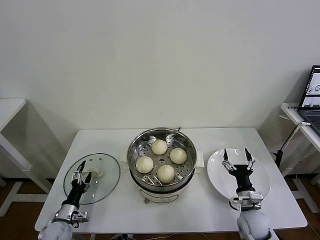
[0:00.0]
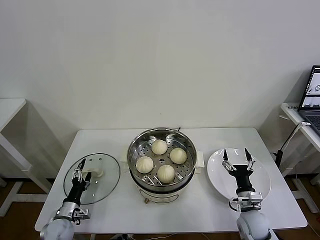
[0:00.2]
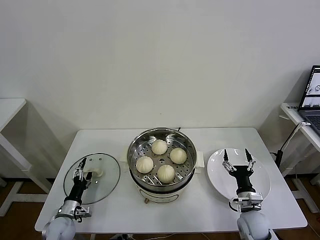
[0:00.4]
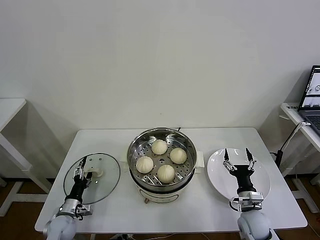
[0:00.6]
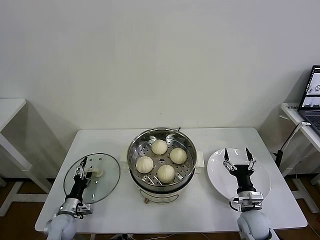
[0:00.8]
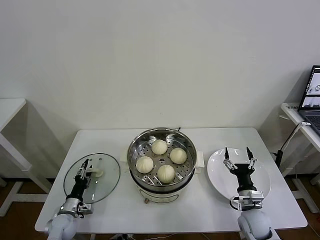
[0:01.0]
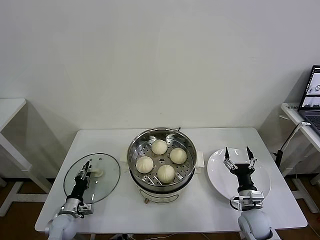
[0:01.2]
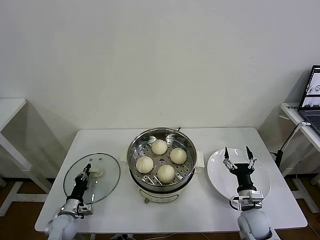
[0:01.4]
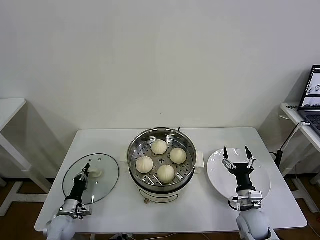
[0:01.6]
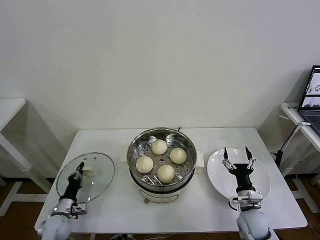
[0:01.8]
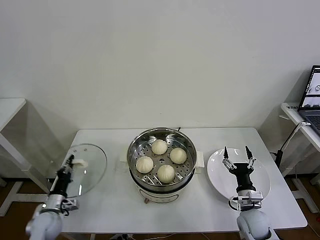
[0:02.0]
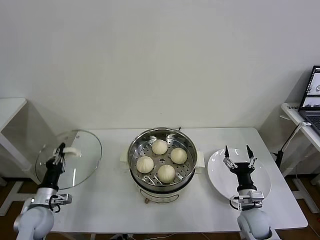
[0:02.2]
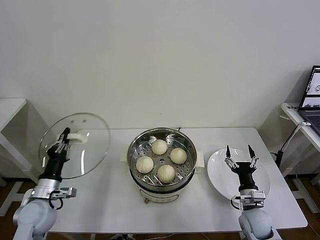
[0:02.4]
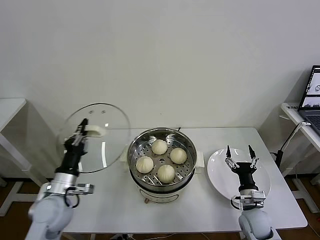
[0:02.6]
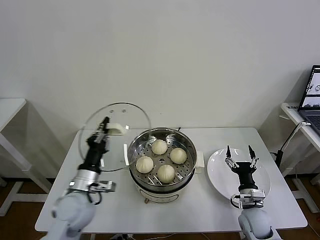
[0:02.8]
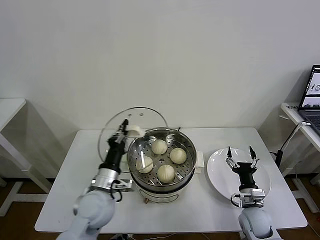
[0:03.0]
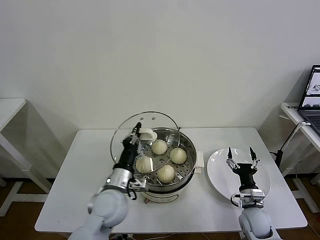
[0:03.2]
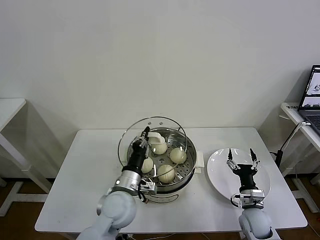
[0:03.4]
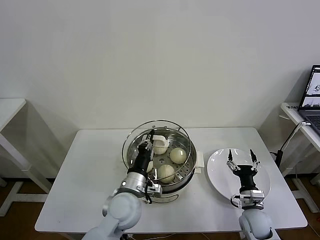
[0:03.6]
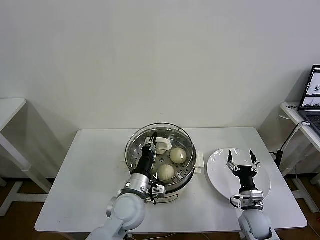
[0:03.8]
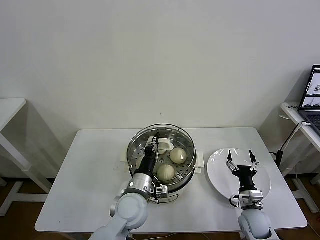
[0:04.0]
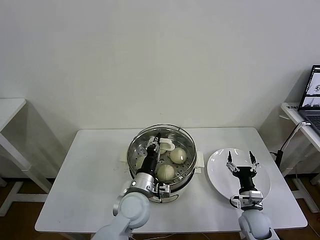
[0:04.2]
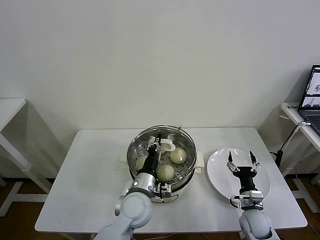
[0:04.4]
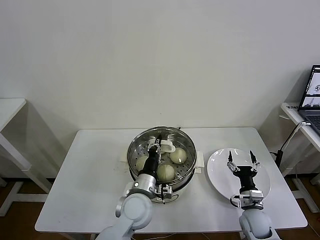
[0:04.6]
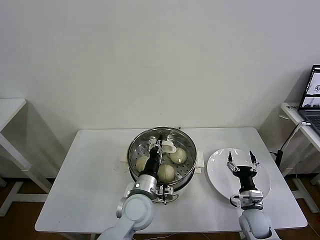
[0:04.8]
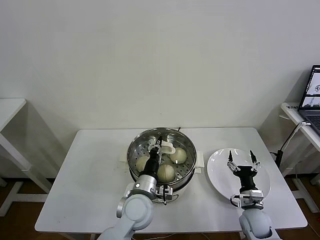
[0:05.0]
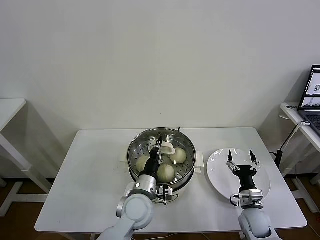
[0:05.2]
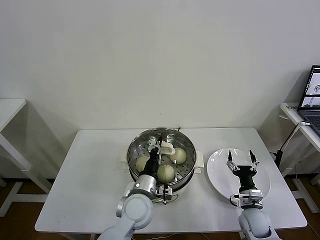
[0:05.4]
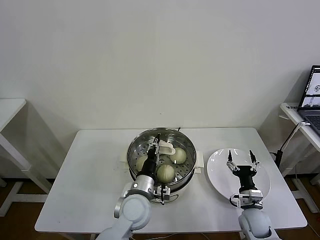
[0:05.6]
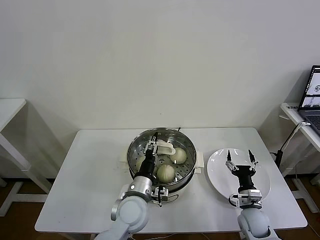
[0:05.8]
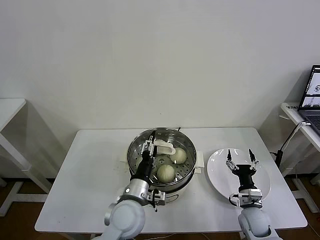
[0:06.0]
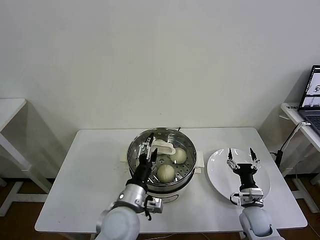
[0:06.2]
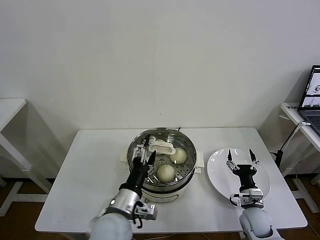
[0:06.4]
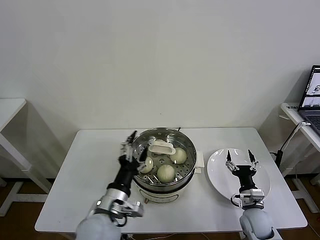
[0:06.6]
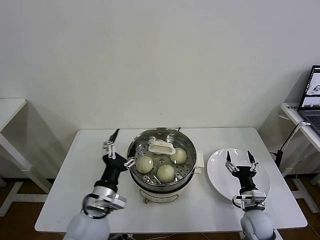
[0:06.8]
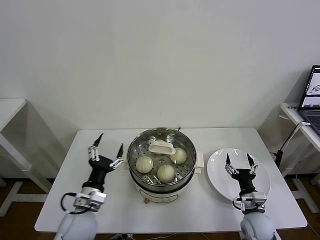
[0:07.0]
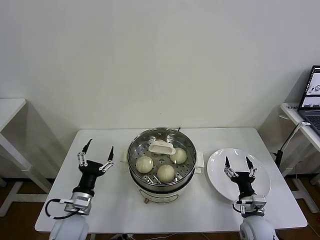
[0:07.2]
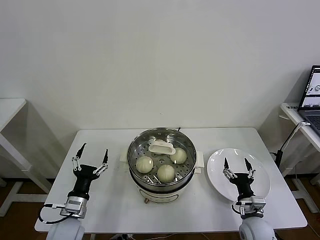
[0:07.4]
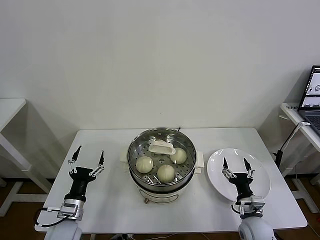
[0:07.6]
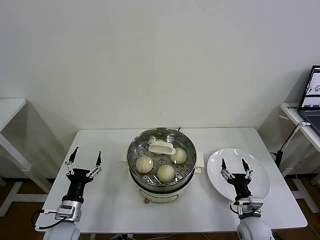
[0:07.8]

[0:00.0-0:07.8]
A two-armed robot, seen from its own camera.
Task of the whole recording: take steamed baozi put them in steamer then cover it.
Step, 0:01.6 to 0:05.6: Place the pot lid on the steamer with left gripper.
0:00.0 to 0:01.6: The left gripper closes its fingers.
0:01.6 to 0:03.2: The left gripper travels upward and to the right by some 30 cm.
0:03.2 to 0:04.6: The left gripper travels to the right by some 10 cm.
0:04.6 to 0:06.2: The left gripper ends up approximately 5 cm from where it was, and opens.
0:06.2 to 0:07.8: The left gripper is displaced to the left and downward by some 20 cm.

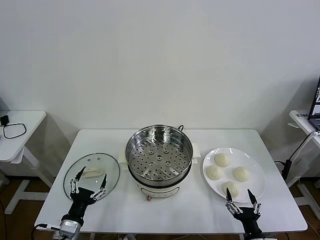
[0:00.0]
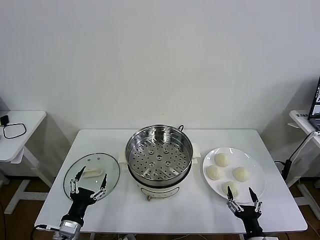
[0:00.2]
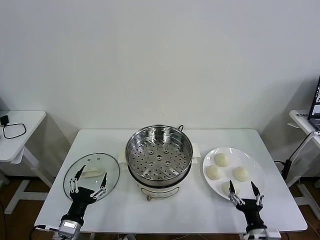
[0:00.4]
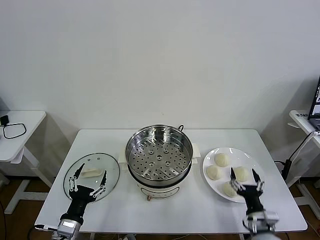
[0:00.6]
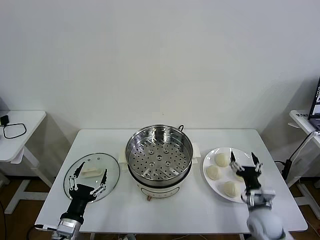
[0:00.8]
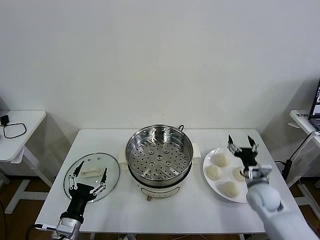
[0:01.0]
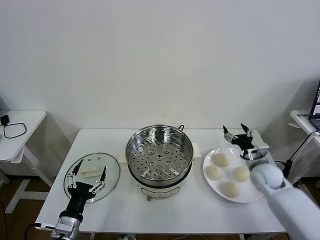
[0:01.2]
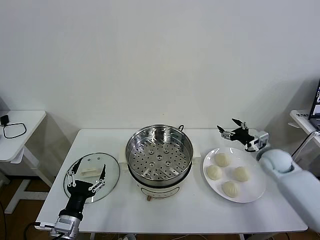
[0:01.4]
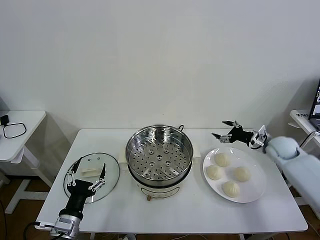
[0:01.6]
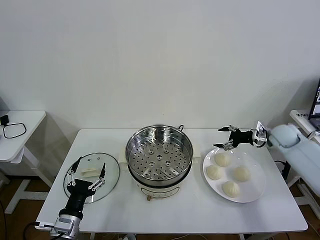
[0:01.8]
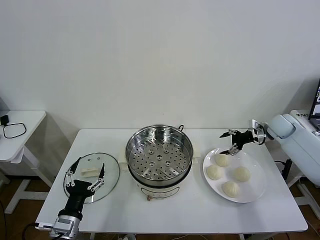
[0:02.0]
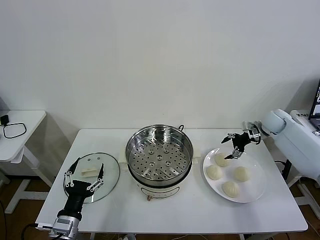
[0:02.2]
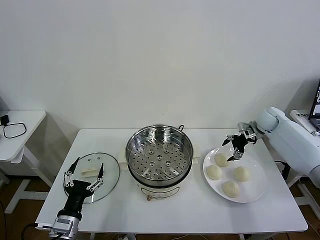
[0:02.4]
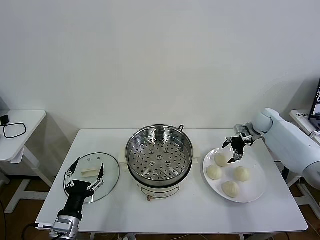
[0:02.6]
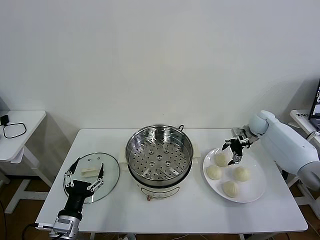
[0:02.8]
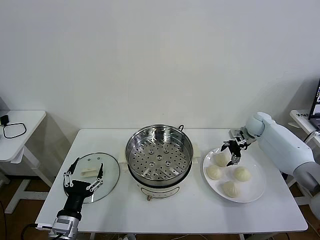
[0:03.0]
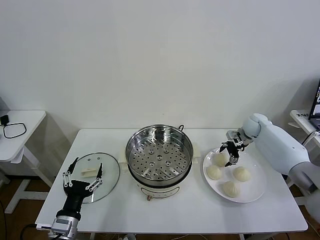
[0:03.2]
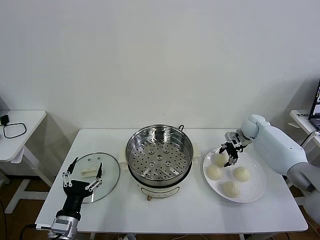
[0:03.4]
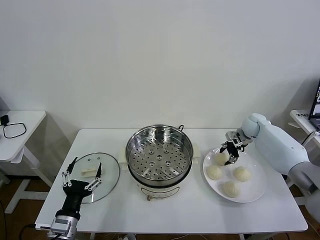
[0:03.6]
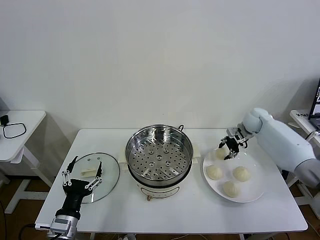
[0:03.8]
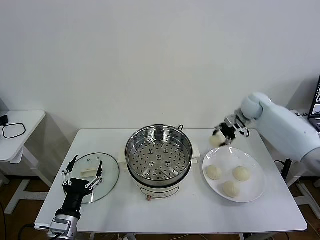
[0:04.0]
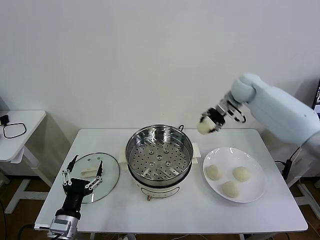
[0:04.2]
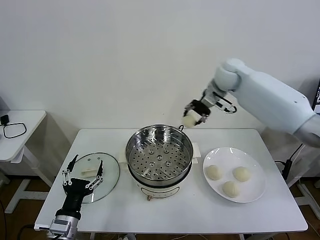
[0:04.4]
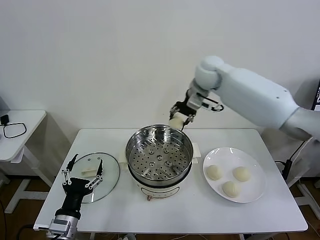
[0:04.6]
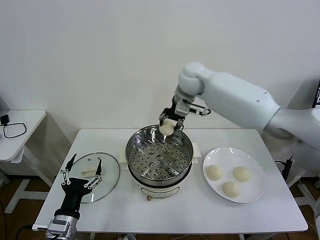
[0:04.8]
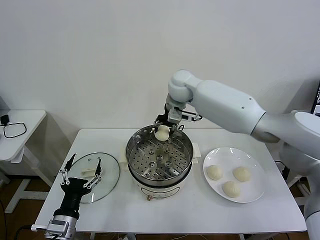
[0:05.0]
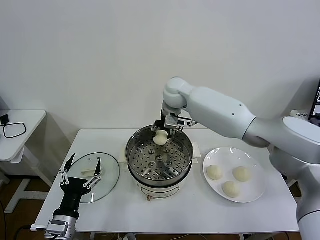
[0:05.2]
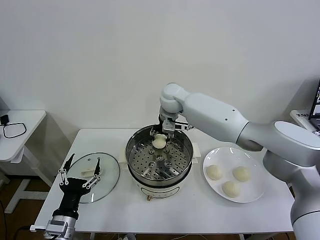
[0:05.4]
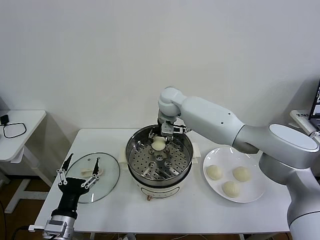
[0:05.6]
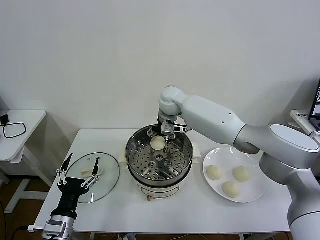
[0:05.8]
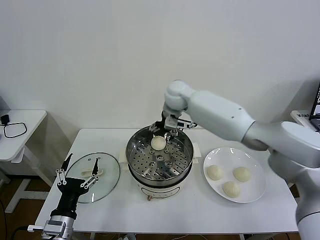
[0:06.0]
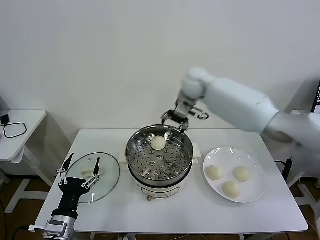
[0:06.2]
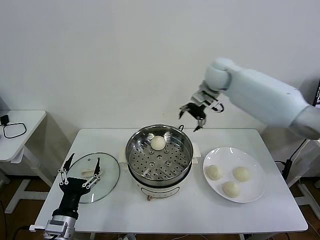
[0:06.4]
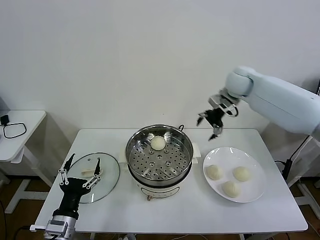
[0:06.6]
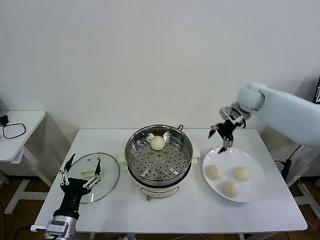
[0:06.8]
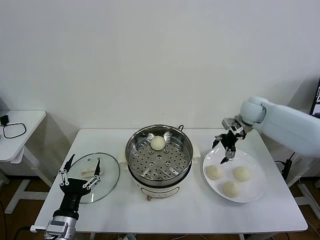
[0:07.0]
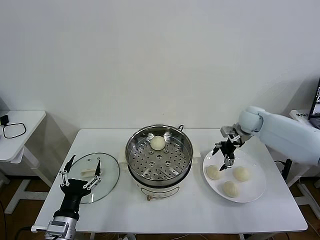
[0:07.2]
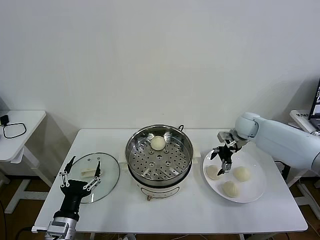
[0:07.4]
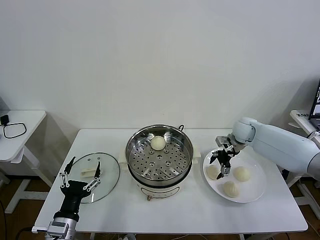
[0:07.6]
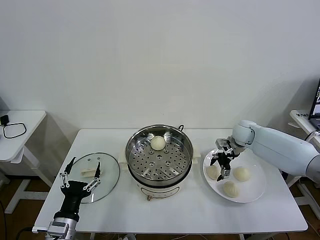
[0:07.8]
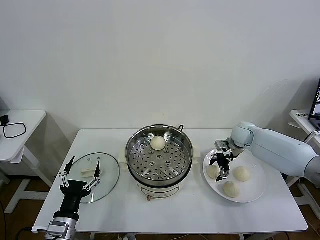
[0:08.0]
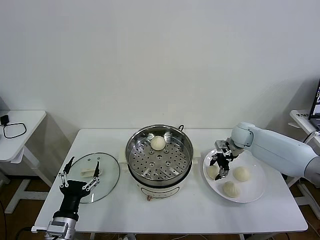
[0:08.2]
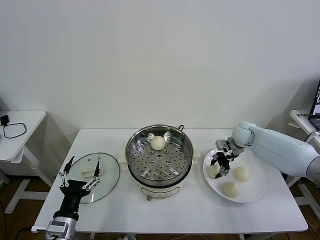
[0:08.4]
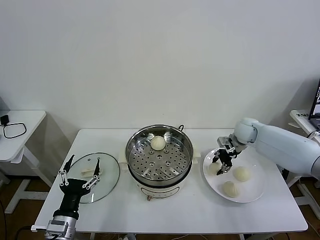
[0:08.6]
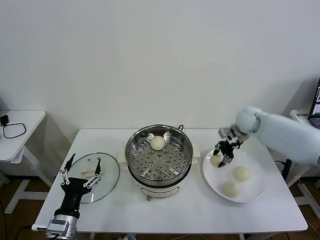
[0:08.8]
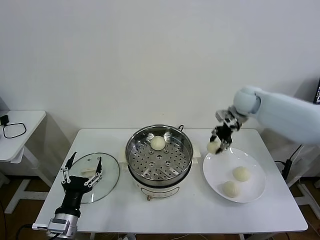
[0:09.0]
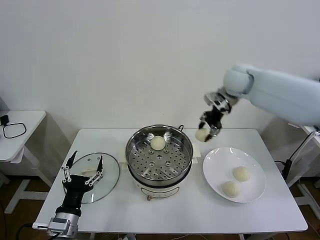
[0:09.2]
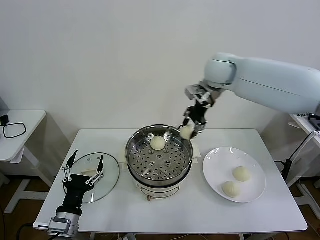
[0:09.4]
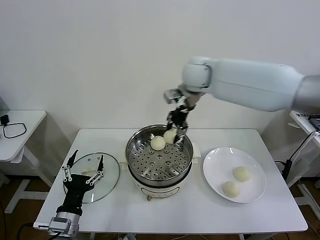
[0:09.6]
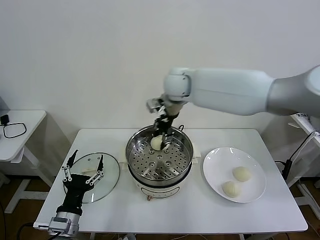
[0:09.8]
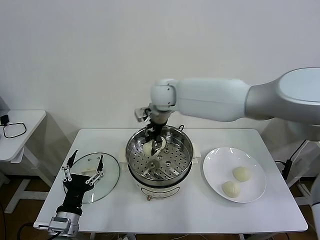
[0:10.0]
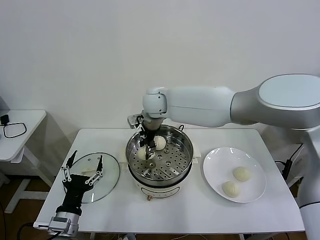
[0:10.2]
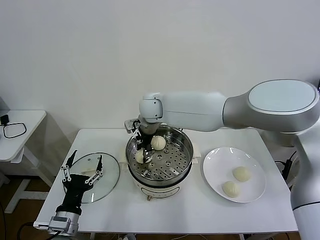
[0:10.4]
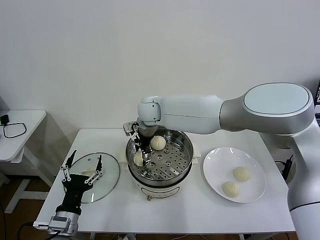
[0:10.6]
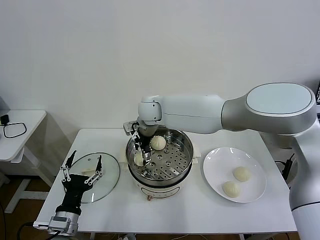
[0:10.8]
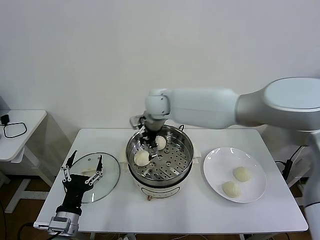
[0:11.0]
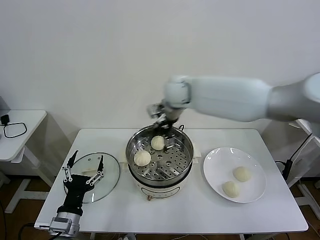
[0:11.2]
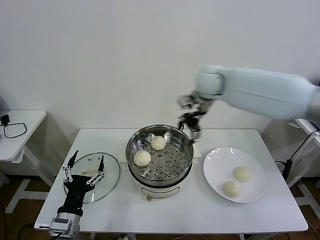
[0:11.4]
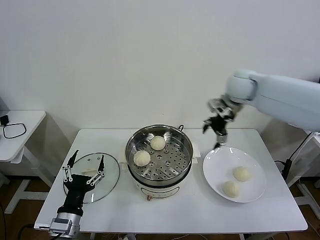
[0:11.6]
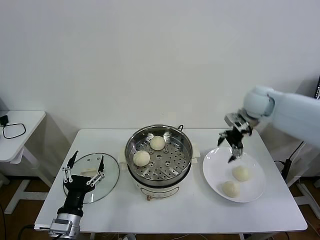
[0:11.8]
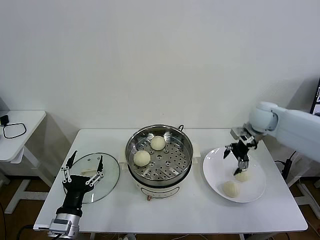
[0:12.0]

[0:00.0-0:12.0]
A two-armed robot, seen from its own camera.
Task of the whole recording: take steamed baozi put them in steamer then cover it.
Step, 0:00.0 to 0:03.4: Grasp the baozi in the plate with right gripper.
Step, 0:03.6 to 0:06.0: Place the baozi on the steamer with right gripper.
Step, 0:06.4 to 0:08.2: Grasp the baozi in the plate with right gripper.
Step, 0:08.4 to 0:10.6: Place the baozi on the steamer with right gripper.
0:01.6 to 0:03.0: The right gripper moves forward and to the left, approximately 10 cm.
0:03.0 to 0:04.4: The right gripper moves upward and to the left, some 30 cm, and closes up.
0:04.4 to 0:06.0: The right gripper goes roughly 10 cm to the left and downward, and opens its fingers.
0:06.0 to 0:07.6: The right gripper shifts roughly 30 cm to the right and downward.
0:07.6 to 0:09.0: The right gripper travels upward by about 20 cm, and closes.
0:09.0 to 0:10.4: The right gripper is displaced to the left by about 30 cm.
0:10.4 to 0:12.0: The right gripper moves to the right, roughly 40 cm, and opens its fingers.

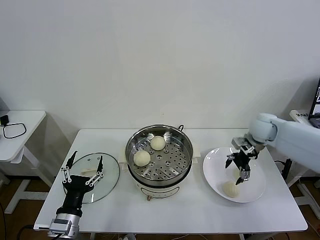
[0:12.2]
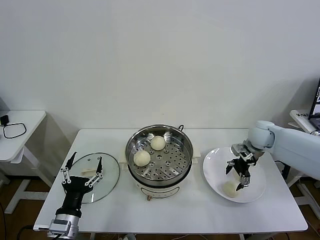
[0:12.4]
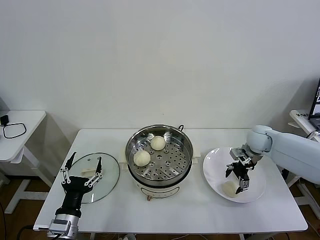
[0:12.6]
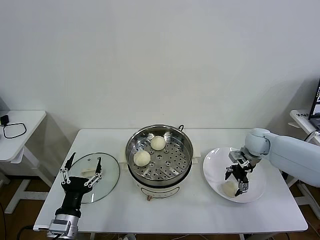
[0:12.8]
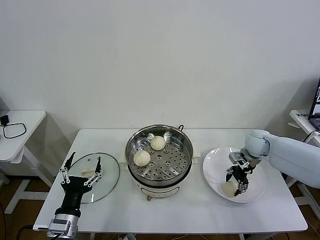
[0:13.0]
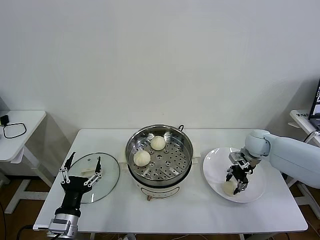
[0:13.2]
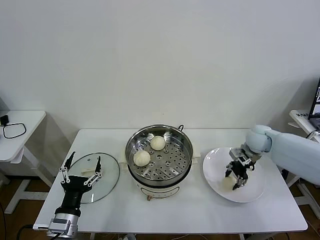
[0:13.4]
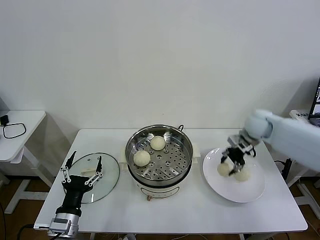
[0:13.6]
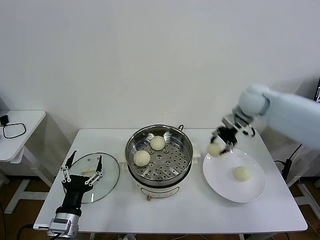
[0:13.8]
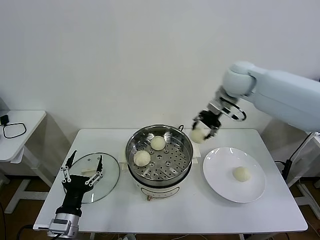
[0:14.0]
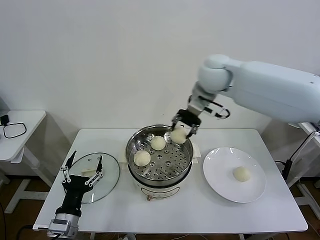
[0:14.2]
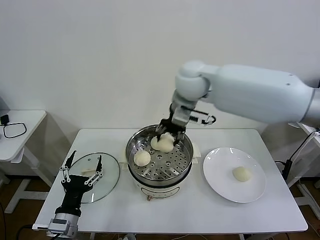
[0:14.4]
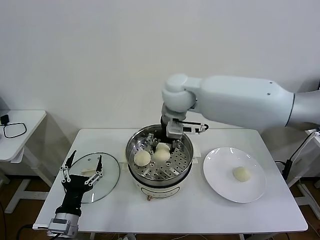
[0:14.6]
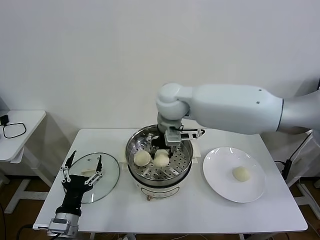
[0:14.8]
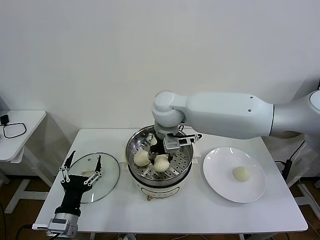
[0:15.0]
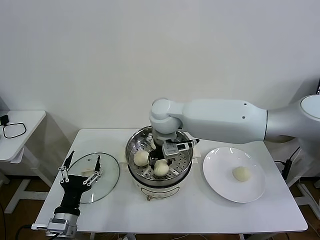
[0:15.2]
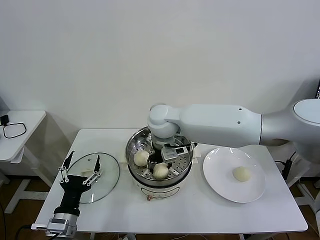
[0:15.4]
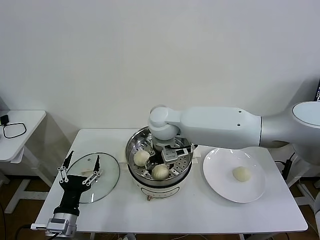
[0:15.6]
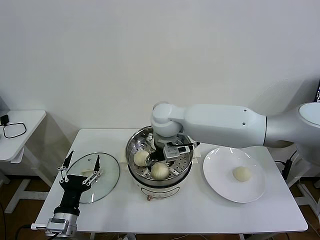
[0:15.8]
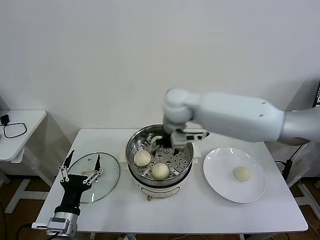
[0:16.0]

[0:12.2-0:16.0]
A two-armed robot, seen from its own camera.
Task of the whole recording: take steamed baozi put them in steamer then cover it.
Step, 0:13.4 to 0:15.8: Place the baozi on the steamer with right gripper.
0:12.2 to 0:13.4: The right gripper closes.
0:13.4 to 0:14.8: The right gripper goes some 35 cm to the left and upward.
0:14.8 to 0:16.0: The right gripper opens its fingers.
